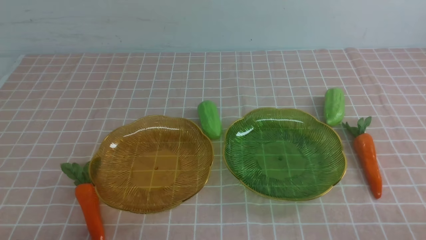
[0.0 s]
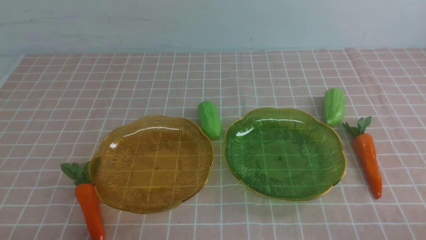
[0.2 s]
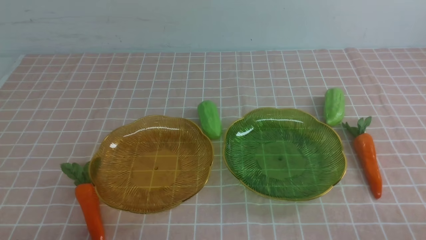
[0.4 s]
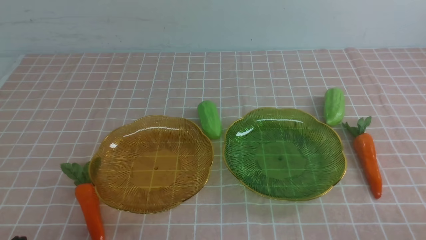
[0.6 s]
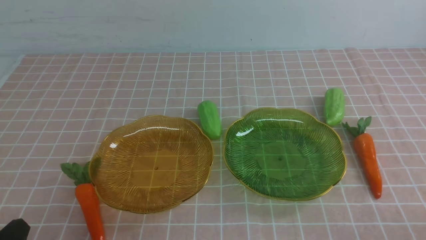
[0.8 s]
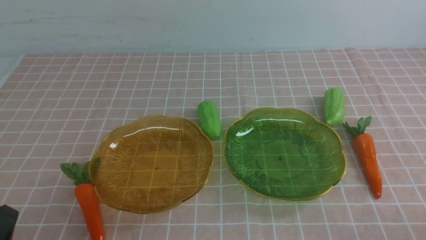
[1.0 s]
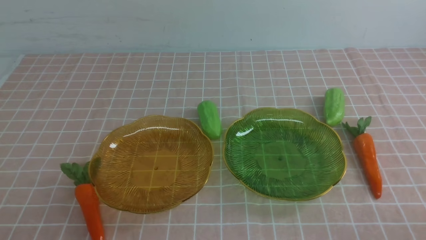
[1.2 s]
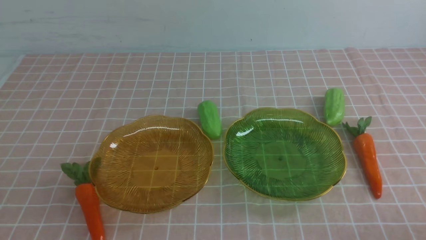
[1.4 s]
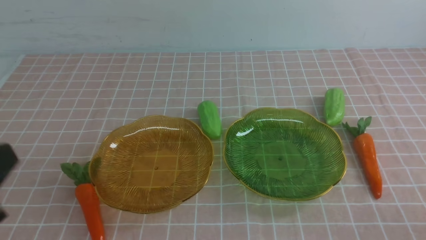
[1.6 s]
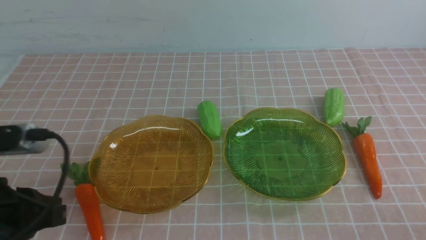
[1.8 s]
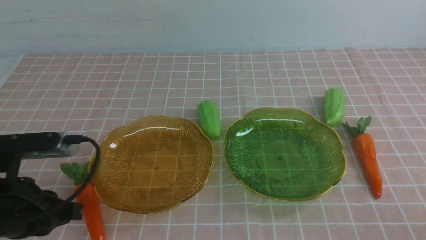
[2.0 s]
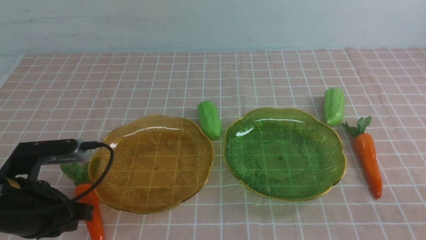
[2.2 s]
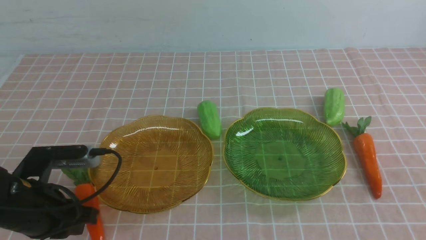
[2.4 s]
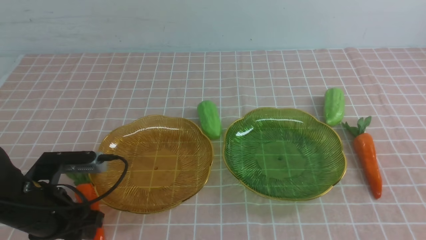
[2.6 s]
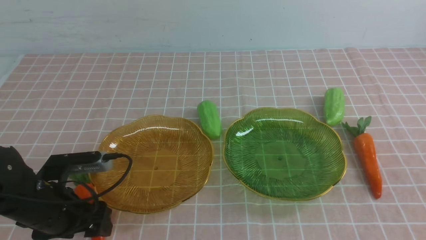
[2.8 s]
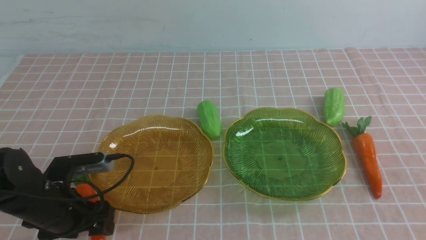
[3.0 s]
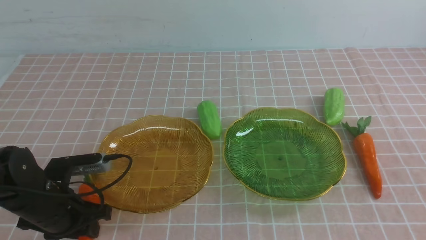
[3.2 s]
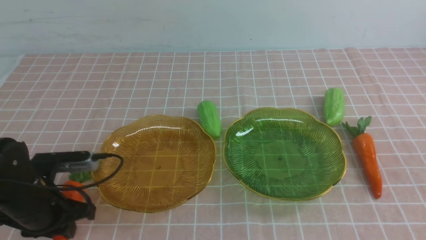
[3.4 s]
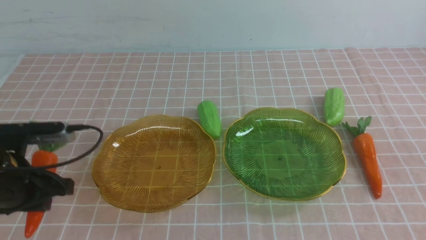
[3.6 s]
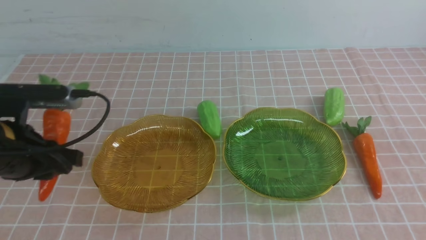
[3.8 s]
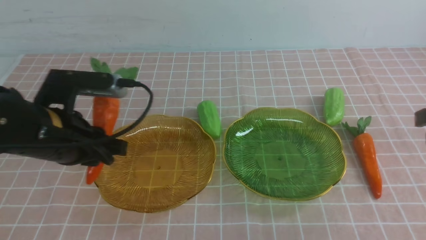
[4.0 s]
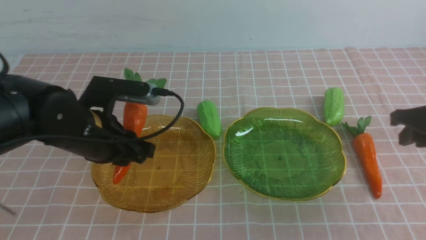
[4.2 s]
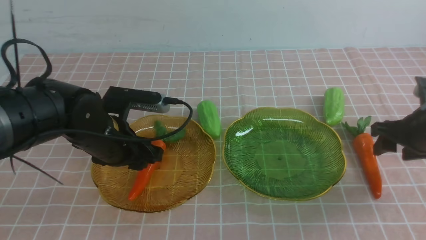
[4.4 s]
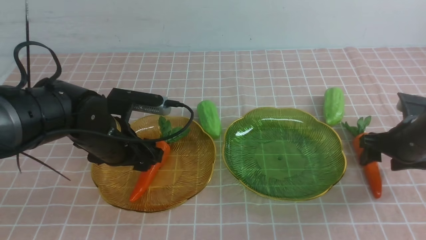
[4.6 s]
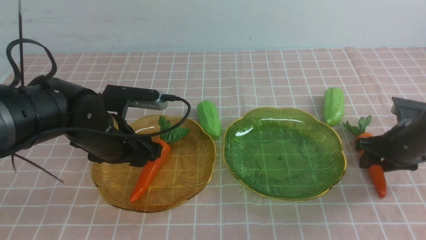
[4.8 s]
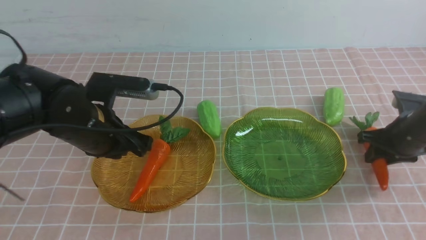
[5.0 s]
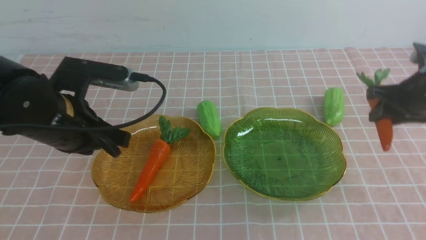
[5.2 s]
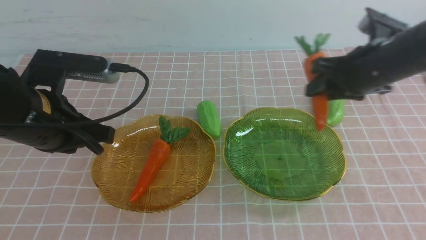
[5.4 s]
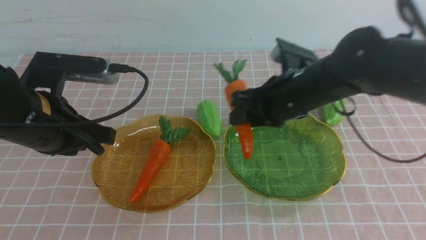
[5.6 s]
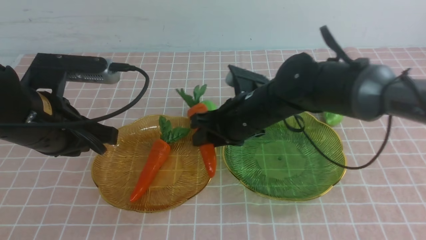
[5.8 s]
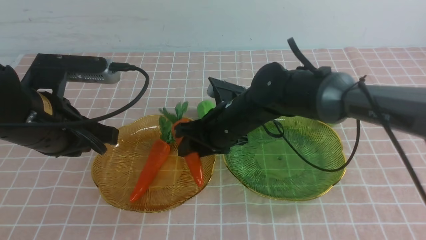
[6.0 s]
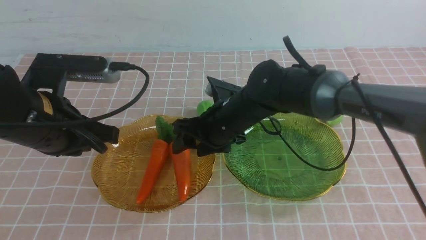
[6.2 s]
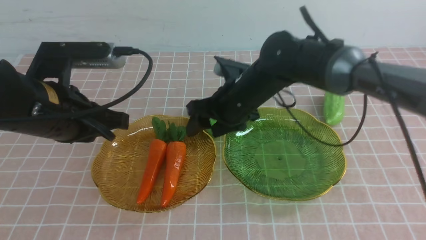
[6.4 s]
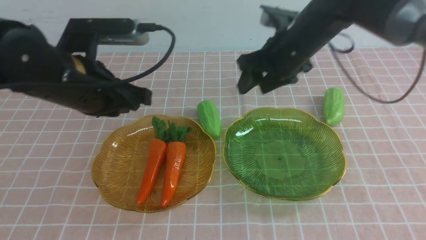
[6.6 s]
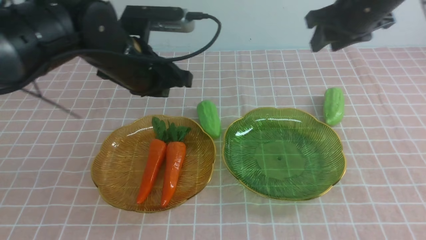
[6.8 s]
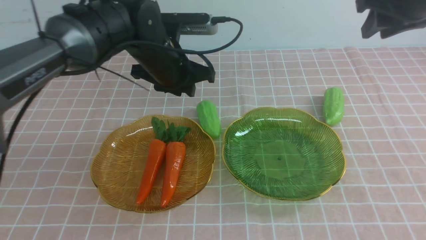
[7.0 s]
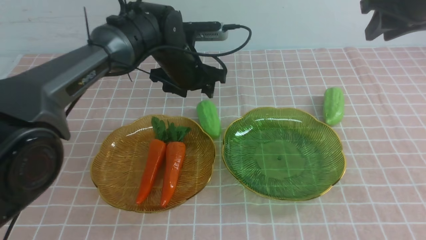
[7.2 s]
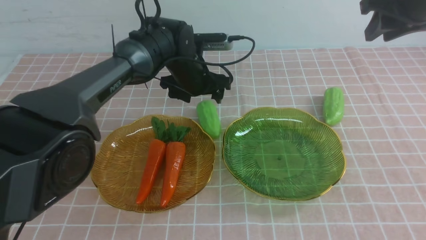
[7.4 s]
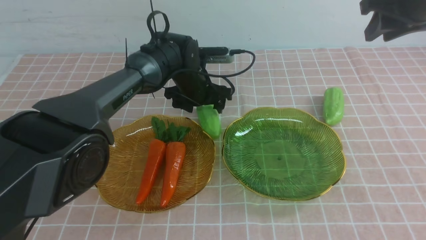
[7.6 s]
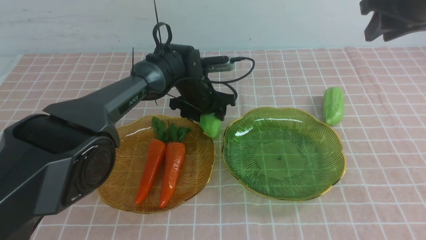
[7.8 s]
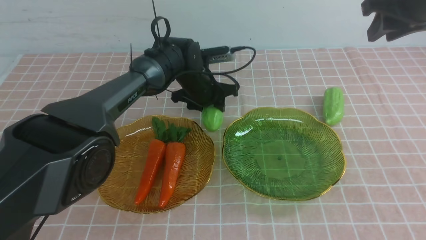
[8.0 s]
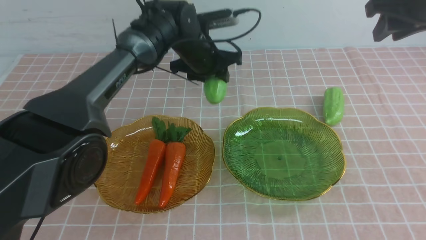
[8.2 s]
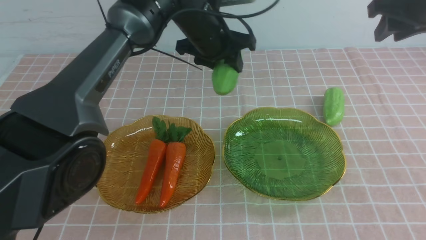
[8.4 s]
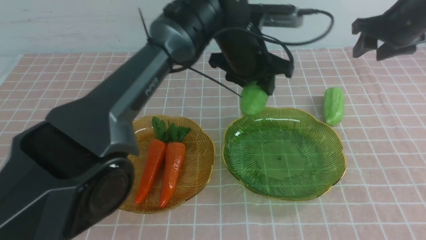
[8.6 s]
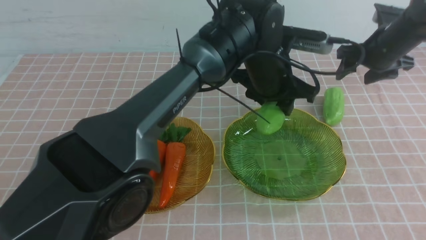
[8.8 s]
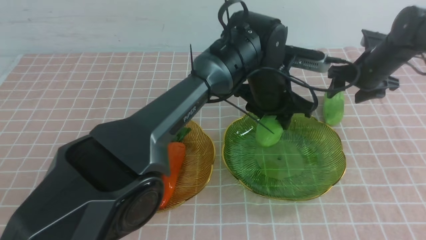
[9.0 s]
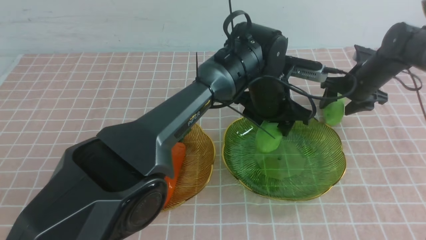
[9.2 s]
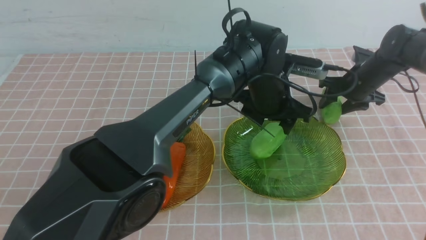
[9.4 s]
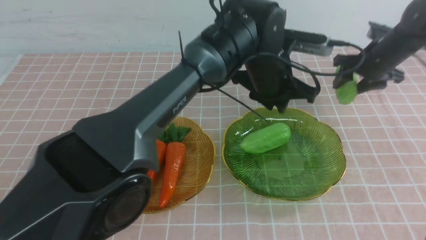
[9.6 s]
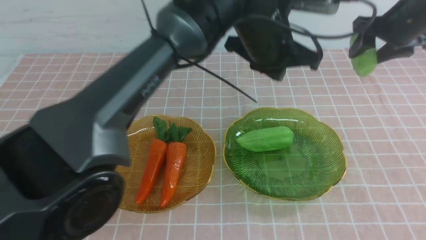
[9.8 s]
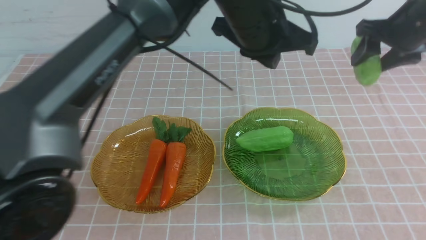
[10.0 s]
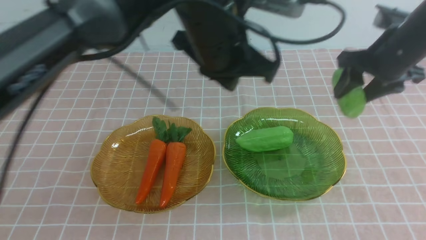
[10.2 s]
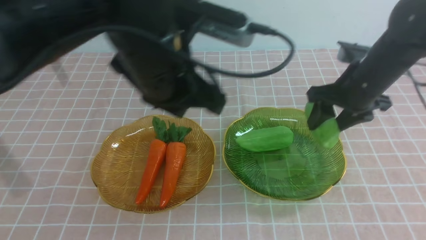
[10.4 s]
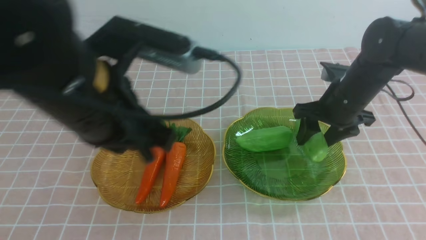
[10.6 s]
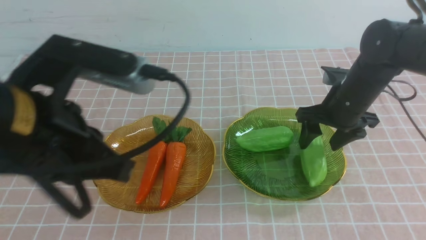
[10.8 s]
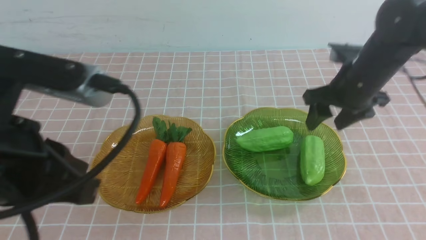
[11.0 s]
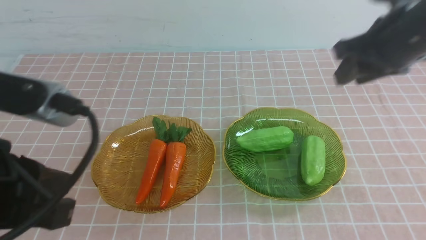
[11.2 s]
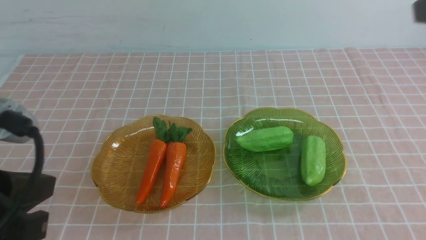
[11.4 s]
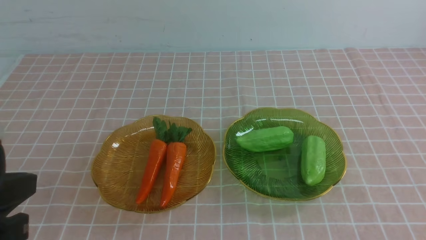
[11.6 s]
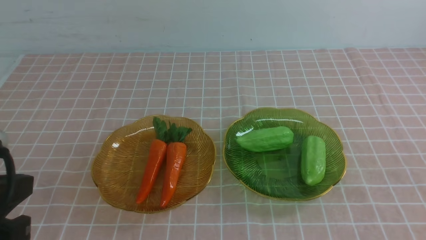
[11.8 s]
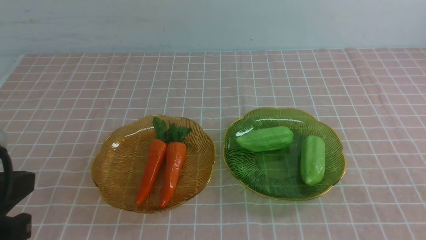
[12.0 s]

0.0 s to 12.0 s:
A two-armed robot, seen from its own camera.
Step, 0.0 to 5.0 s: use the left arm to grab a carrot and put it into the left plate.
Step, 5.2 to 6.0 s: use the right arm to grab a carrot and put it into the left plate.
Step, 6.2 to 9.4 s: use the left arm to grab a chayote and put it into the right plate.
Step, 9.6 to 10.8 s: use the right arm to grab a chayote and put it into the right plate.
0.0 to 1.6 s: The left gripper is displaced upward by some 15 cm.
1.6 to 3.0 s: The left gripper heads downward and forward, covering some 20 cm, and opens up.
3.0 to 4.4 s: The right gripper moves forward and downward, approximately 30 cm, and opens. Meanwhile the left gripper goes approximately 10 cm to the right and forward.
4.4 to 6.0 s: The right gripper moves to the left, roughly 30 cm; the left gripper heads upward, covering approximately 10 cm, and closes up.
6.0 to 7.6 s: The left gripper travels forward, to the right and downward by some 30 cm, and opens its fingers. The right gripper heads to the right and upward, covering about 30 cm.
7.6 to 9.0 s: The right gripper shifts roughly 20 cm downward and forward, and opens up; the left gripper is displaced to the right, backward and upward by approximately 15 cm, and closes its fingers.
9.0 to 10.4 s: The left gripper goes approximately 30 cm backward, to the left and upward, and closes its fingers. The right gripper goes about 15 cm backward and to the left, and travels upward and back again, about 10 cm each way.
10.4 to 12.0 s: The left gripper goes about 20 cm backward and to the left. The right gripper is displaced backward by some 35 cm, and closes up.

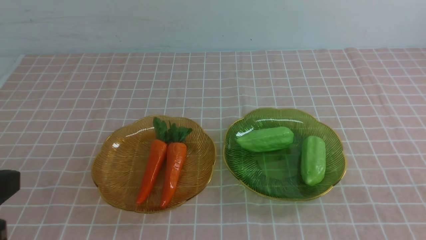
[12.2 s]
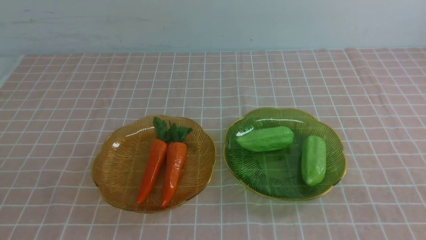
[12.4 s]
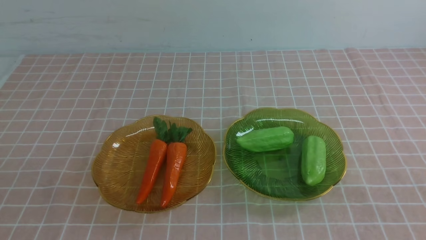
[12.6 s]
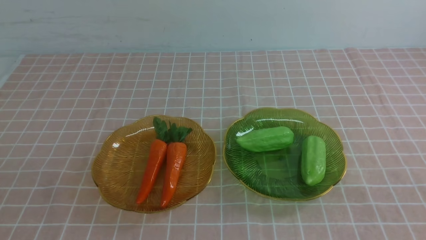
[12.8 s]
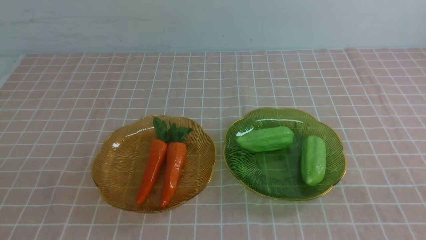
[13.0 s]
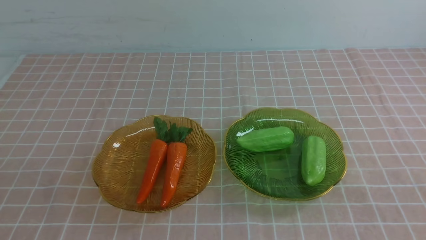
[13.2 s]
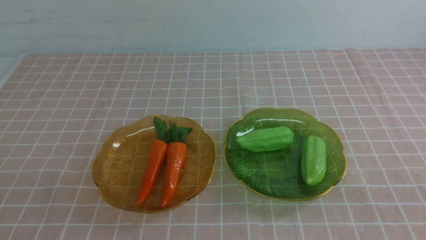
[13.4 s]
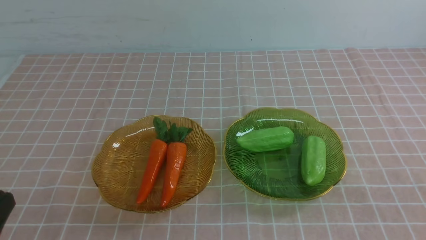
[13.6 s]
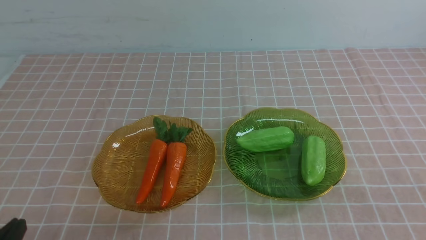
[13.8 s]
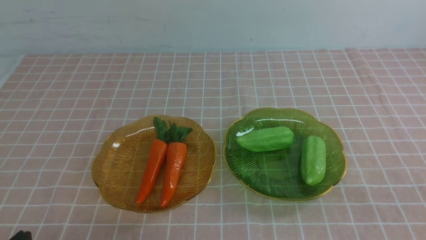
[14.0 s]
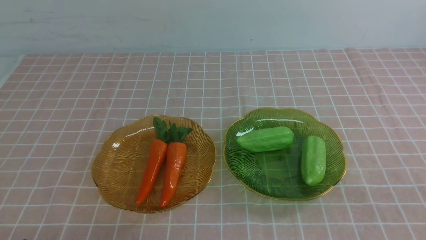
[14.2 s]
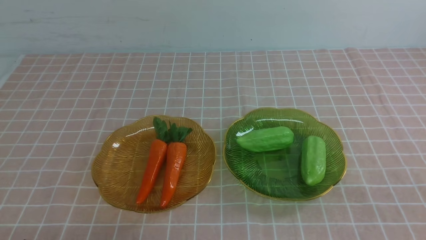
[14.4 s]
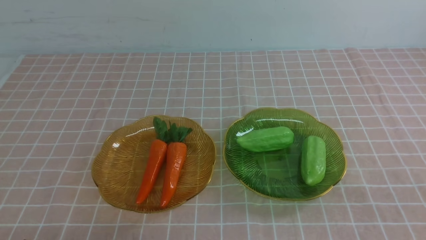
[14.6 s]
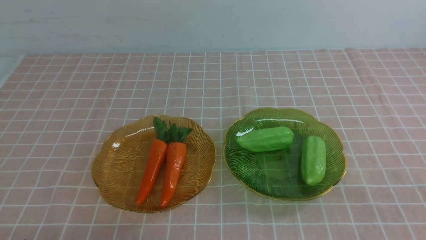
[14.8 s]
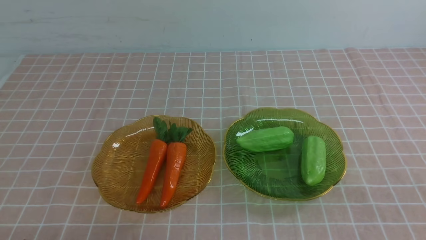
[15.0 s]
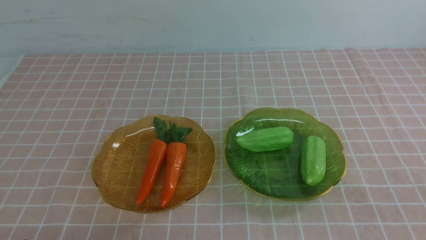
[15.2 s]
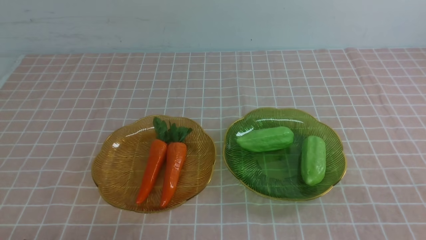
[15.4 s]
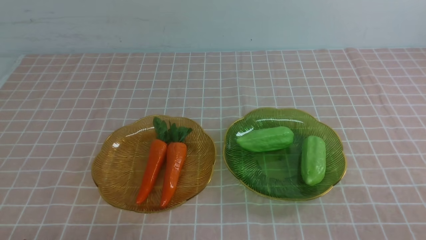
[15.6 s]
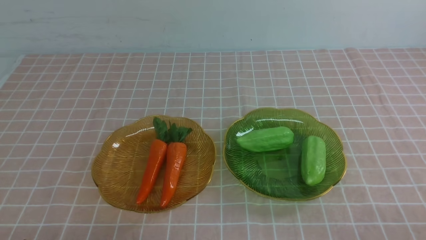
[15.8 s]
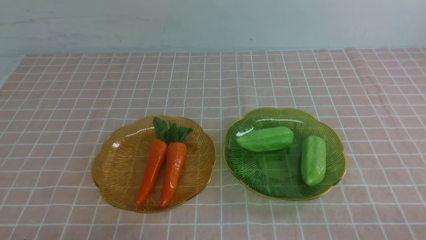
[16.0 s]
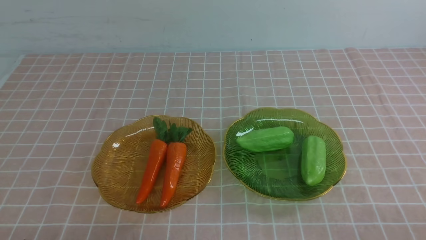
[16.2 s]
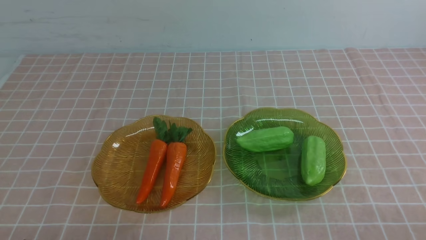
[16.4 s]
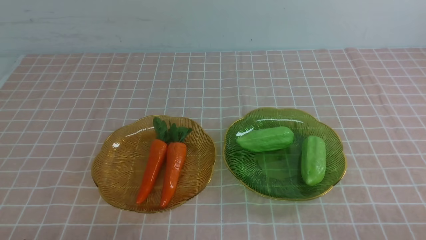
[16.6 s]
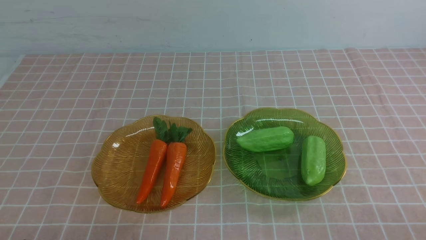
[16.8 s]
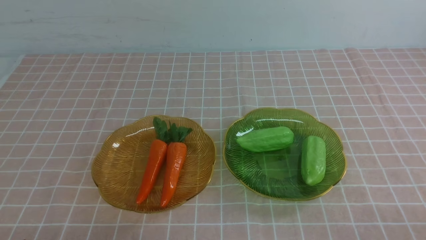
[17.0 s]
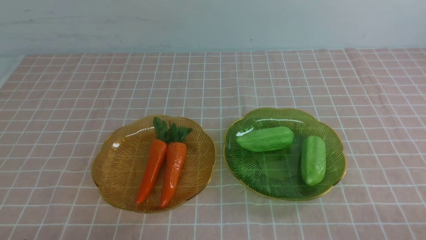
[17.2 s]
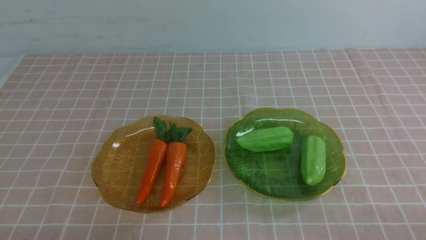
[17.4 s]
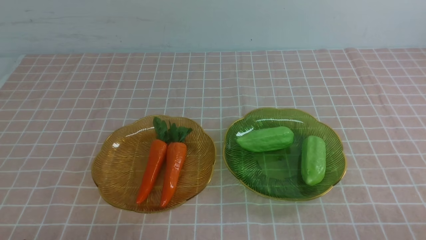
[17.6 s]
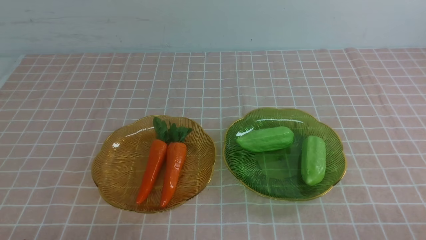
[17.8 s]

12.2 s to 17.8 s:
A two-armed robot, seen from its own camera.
12.2 to 13.6 s: The left gripper heads downward, covering some 10 cm.
16.4 to 17.8 s: Neither gripper changes place.
